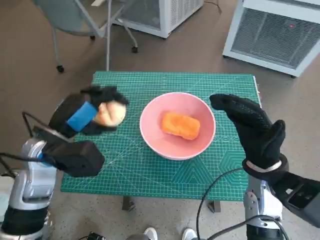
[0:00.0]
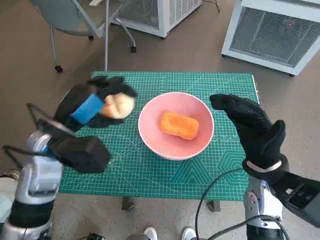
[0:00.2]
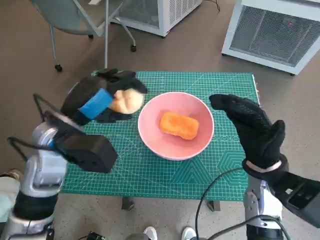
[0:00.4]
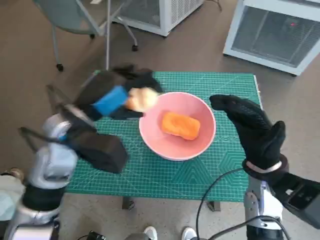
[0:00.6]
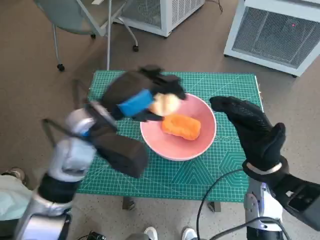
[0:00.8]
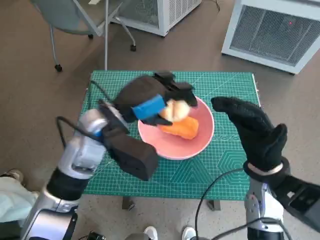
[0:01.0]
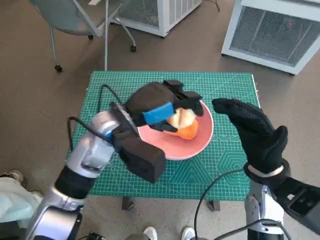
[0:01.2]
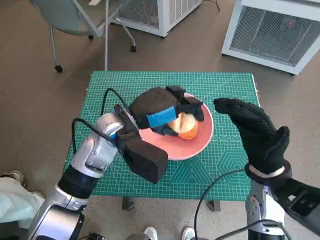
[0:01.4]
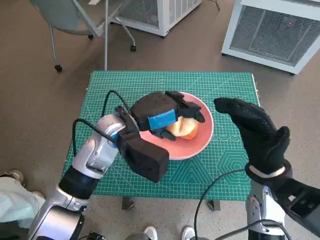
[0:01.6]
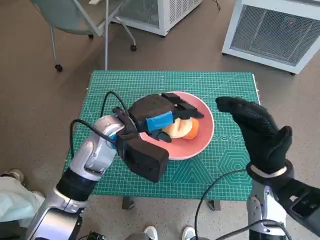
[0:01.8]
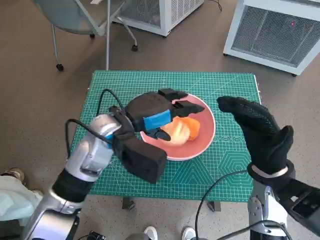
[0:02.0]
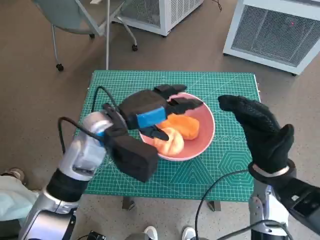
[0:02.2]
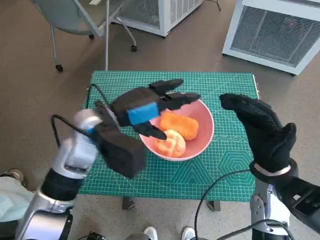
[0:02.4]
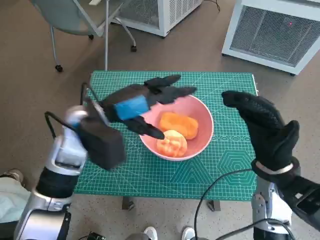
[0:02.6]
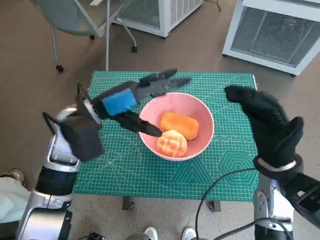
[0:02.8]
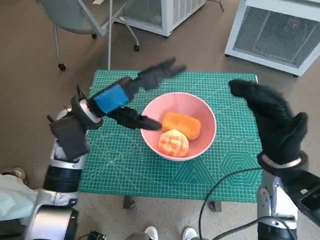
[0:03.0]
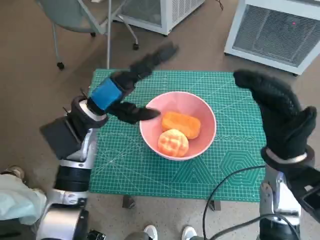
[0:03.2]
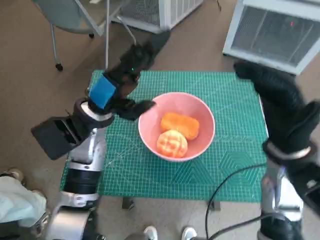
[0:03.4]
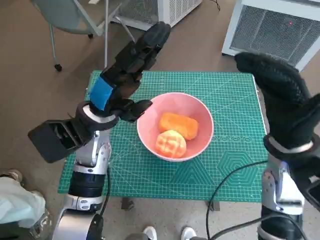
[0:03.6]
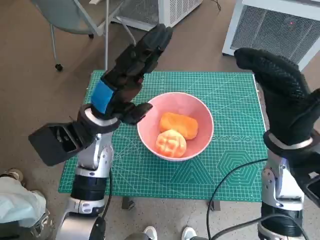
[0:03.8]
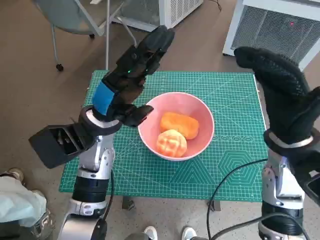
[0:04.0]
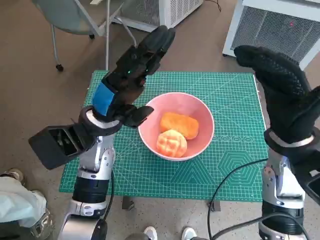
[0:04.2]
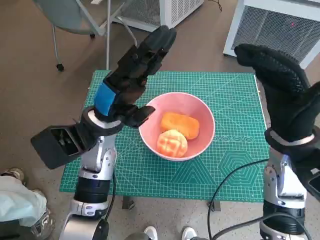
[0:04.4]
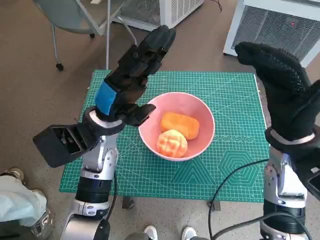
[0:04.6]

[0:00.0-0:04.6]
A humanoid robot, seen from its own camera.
Task of the whole recording: Push the bowl into the center of the table and put the bread into the bowl.
Step, 0:00.0 to 0:01.8: Place the round bread in pink bowl with left hand.
0:00.0 to 0:01.6: The left hand moves to the right, about 10 cm.
0:01.6 to 0:03.0: The left hand heads to the left, covering roughly 5 cm.
0:03.0 to 0:04.6: The right hand changes place by approximately 5 cm.

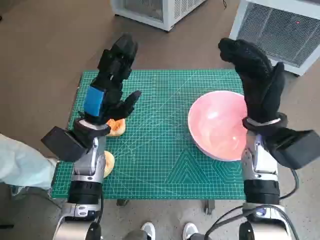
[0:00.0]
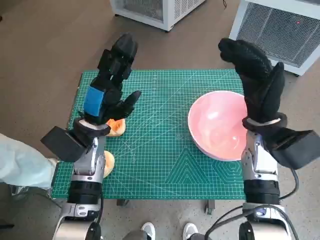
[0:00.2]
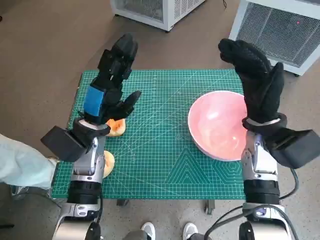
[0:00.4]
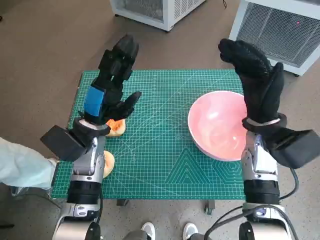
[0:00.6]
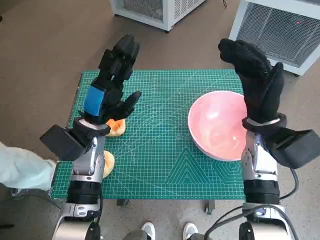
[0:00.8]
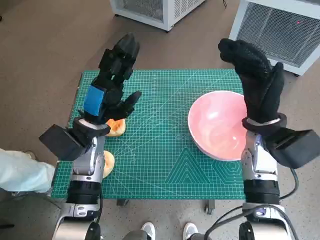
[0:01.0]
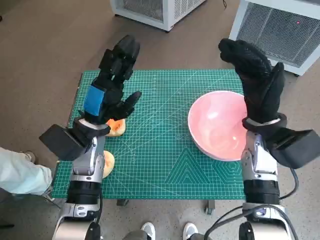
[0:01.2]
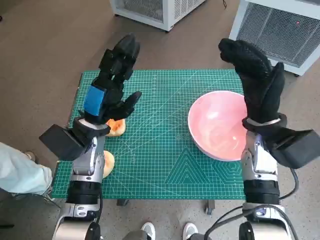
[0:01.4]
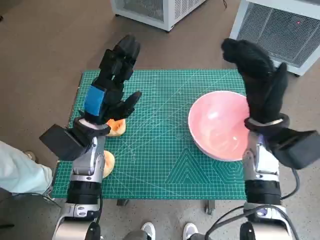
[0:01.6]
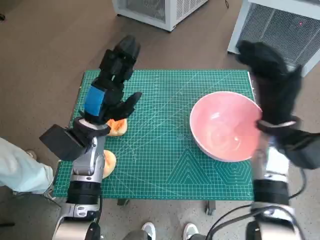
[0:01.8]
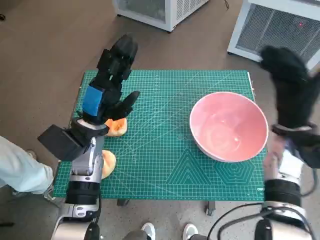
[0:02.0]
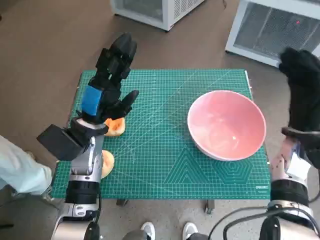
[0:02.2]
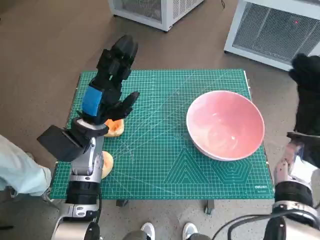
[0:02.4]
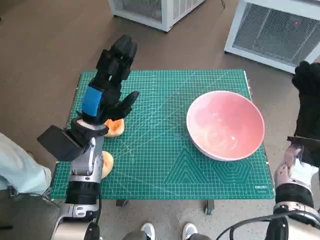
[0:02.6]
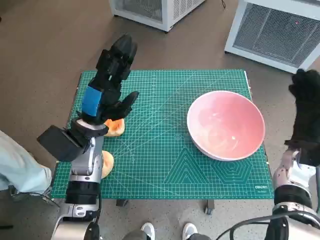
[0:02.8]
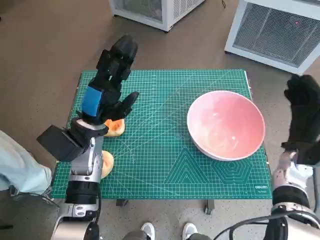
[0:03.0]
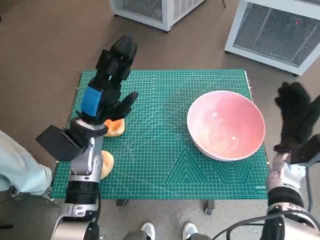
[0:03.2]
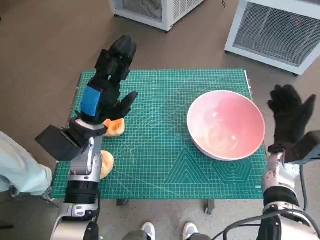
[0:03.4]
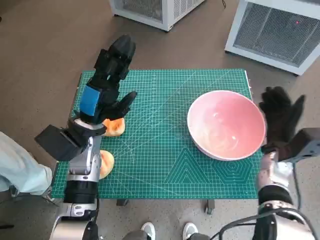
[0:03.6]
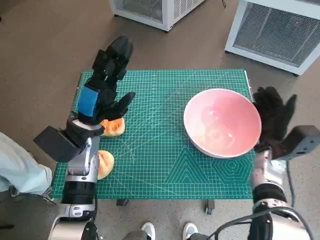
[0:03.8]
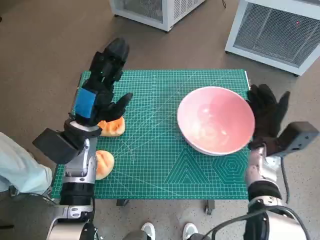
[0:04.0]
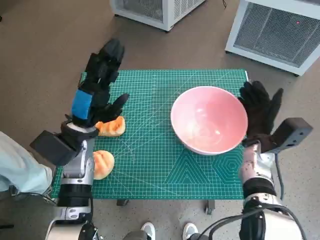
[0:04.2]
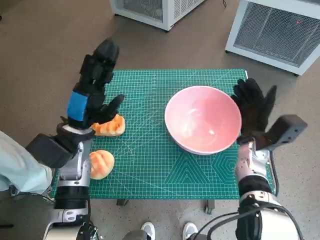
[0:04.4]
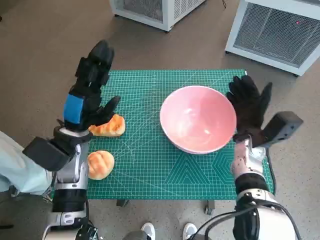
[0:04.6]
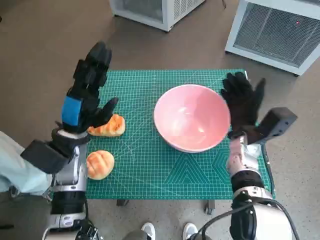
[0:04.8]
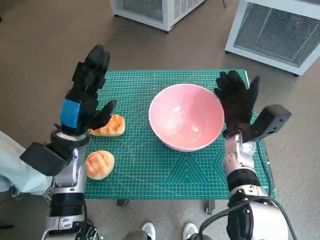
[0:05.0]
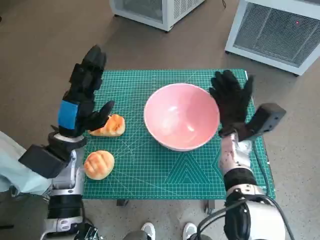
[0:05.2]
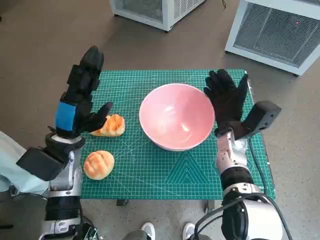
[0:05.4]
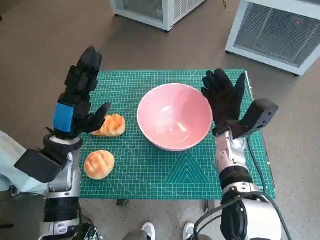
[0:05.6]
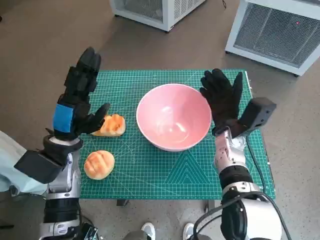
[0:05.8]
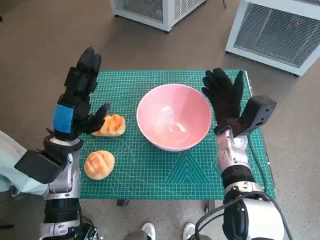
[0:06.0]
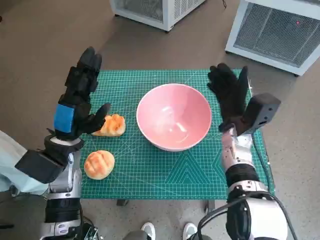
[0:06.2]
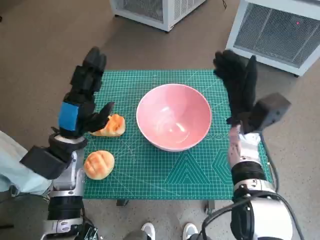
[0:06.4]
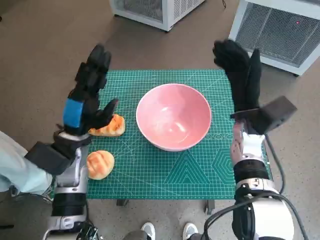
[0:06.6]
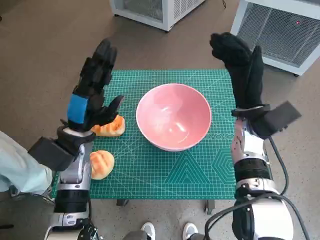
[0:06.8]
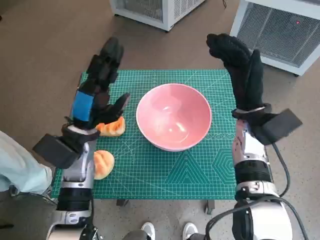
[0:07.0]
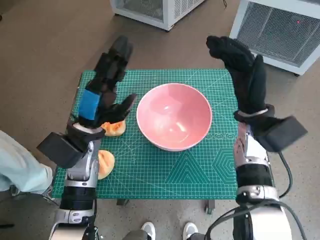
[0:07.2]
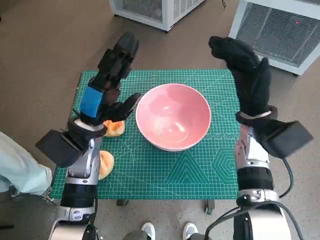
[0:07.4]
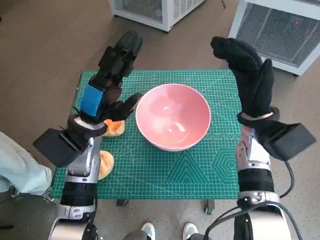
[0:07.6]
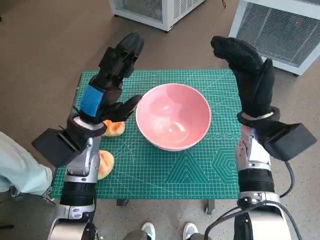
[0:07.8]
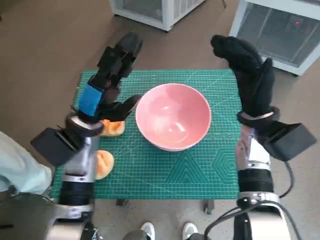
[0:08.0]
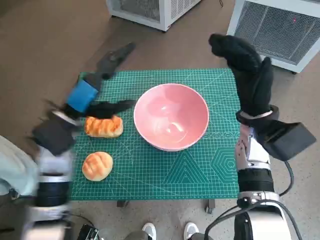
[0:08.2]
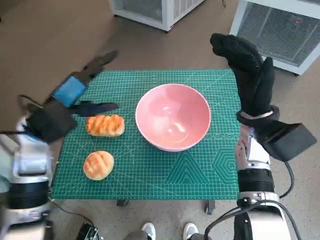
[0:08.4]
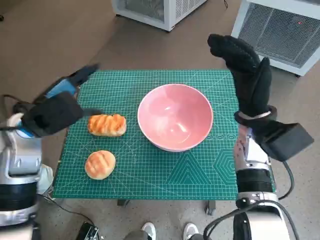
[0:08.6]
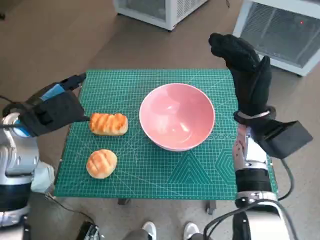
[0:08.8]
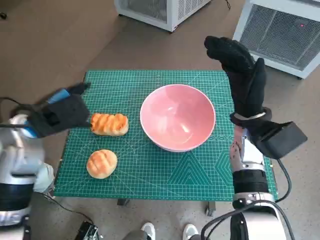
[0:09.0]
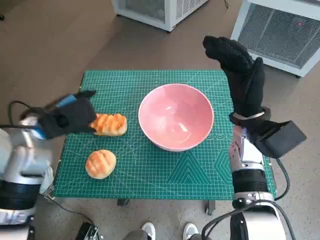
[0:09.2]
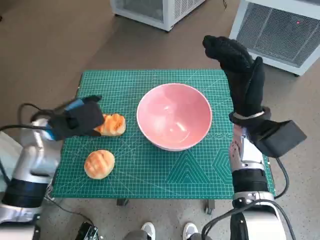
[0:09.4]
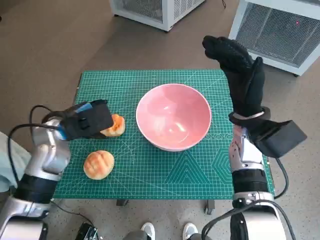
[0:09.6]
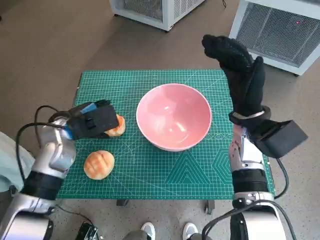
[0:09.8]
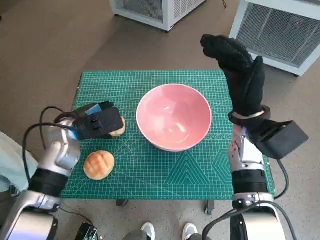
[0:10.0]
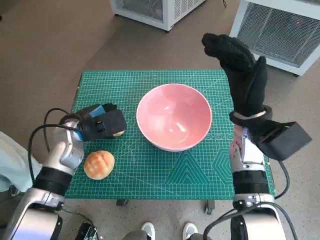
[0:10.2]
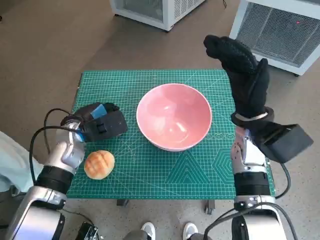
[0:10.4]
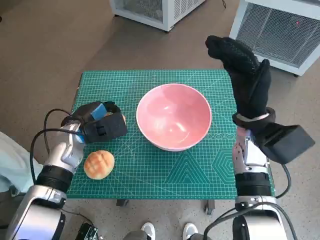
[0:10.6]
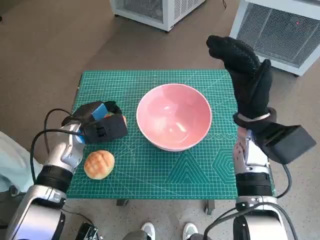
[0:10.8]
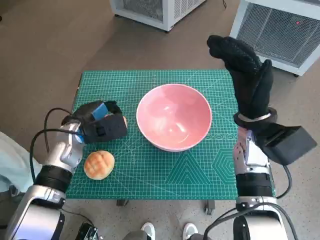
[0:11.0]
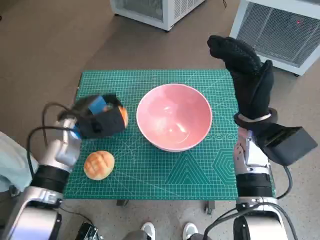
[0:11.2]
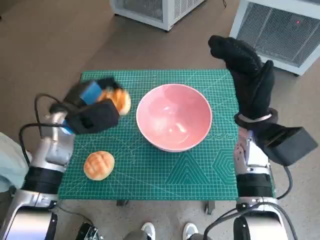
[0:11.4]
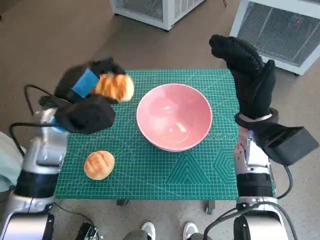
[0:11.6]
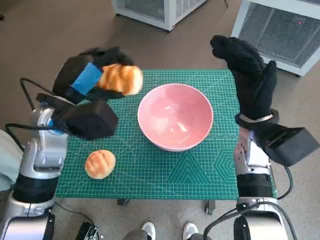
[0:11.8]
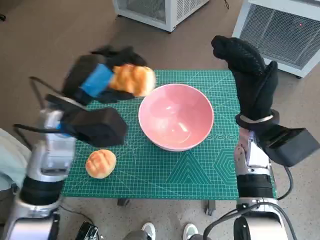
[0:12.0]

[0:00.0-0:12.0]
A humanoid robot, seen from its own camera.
Task of the whole recording: Push the bowl into the center of the table and put the bread into the bowl.
Step, 0:00.0 to 0:06.0: Move the pink bowl to the center of table with right hand.
Step, 0:06.2 to 0:10.6: Grasp the long bread with left hand.
0:01.6 to 0:03.0: The right hand goes approximately 10 cm to the right and downward.
0:03.0 to 0:04.4: The right hand shifts about 10 cm to the left.
0:04.4 to 0:06.0: The right hand goes some 5 cm to the left.
0:06.0 to 0:07.6: The right hand is displaced upward by approximately 5 cm. Meanwhile the left hand shifts by about 5 cm.
0:07.6 to 0:09.0: The left hand is displaced to the left by some 10 cm.
0:09.0 to 0:10.4: The left hand travels downward by some 10 cm.
0:10.4 to 0:12.0: The left hand heads upward, covering roughly 10 cm.

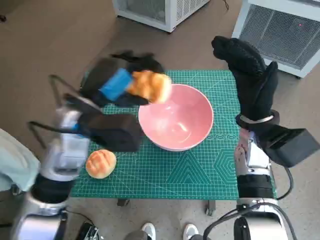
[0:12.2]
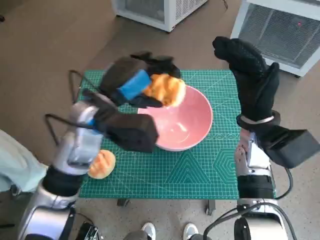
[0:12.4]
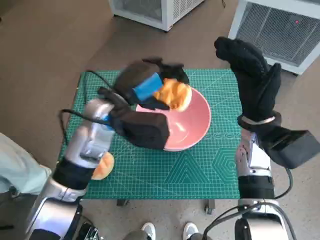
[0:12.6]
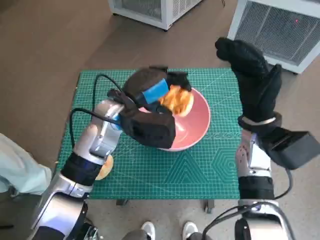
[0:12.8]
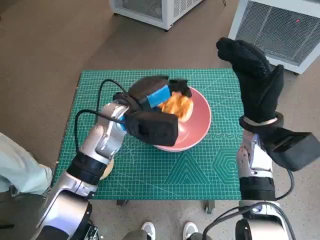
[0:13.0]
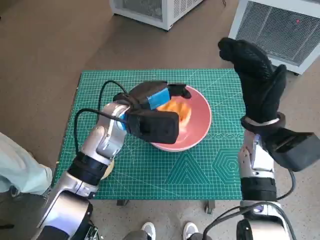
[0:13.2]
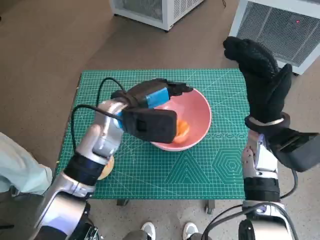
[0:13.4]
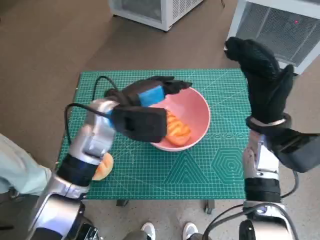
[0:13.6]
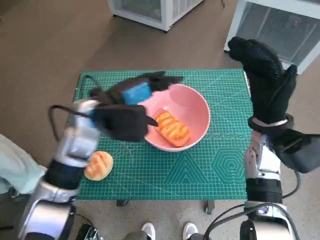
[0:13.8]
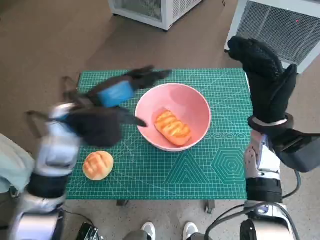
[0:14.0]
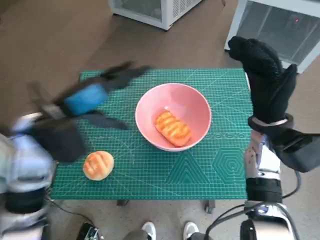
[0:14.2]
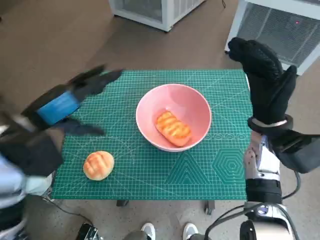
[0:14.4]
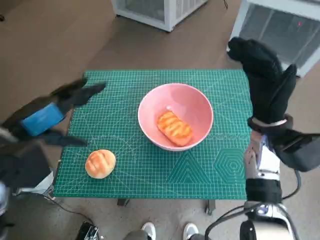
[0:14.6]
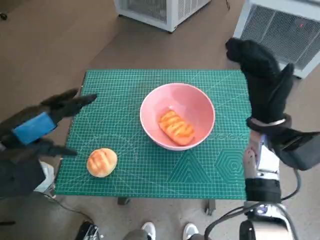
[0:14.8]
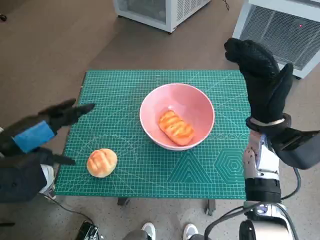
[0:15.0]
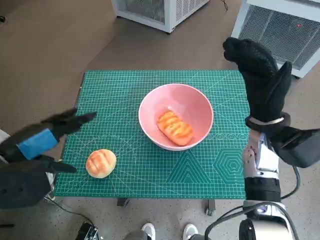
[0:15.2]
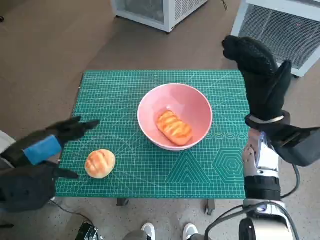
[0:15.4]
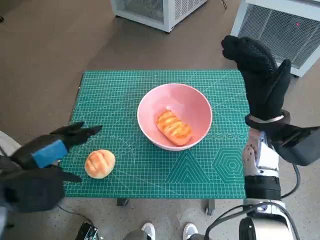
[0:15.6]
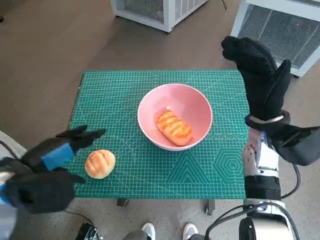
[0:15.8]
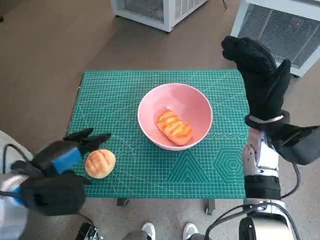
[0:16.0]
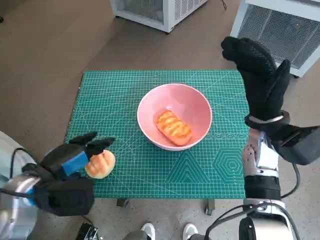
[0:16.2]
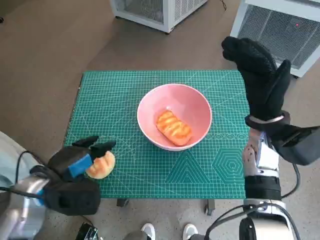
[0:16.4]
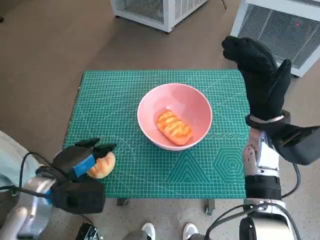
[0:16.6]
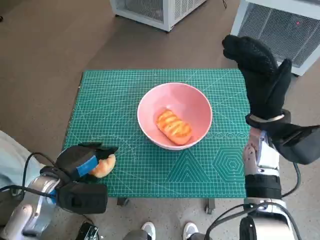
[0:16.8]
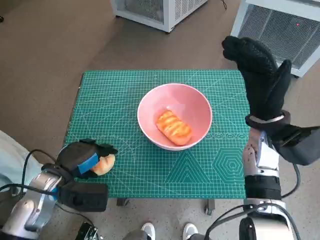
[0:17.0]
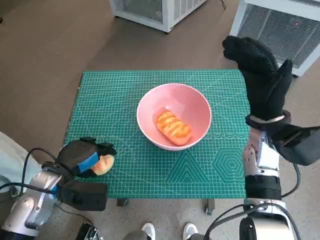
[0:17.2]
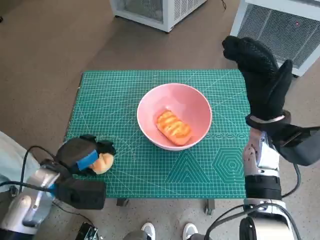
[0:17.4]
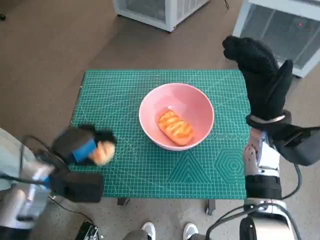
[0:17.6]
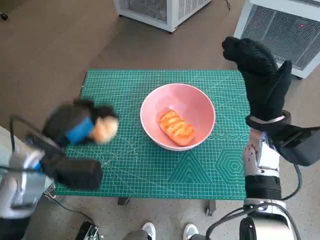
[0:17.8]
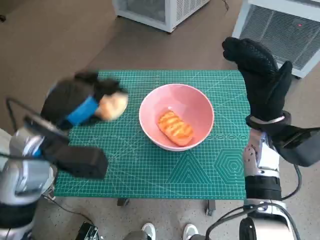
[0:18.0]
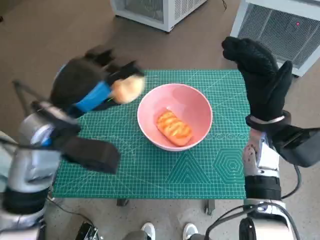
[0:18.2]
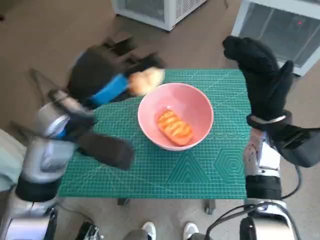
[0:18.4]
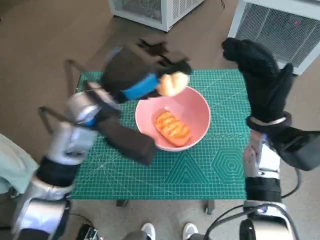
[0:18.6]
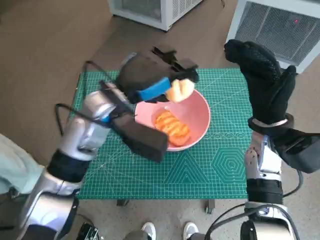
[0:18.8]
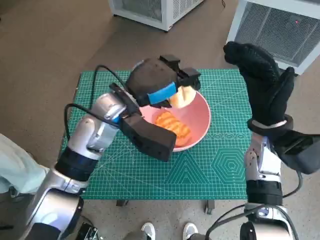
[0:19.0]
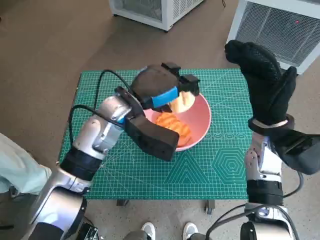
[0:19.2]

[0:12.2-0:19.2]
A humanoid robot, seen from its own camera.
Task of the whole recording: Push the bowl into the center of the table and put the bread into the bowl.
Step, 0:12.2 to 0:13.8: Place the long bread in pink bowl with left hand.
Step, 0:14.0 to 0:16.8: Grasp the round bread with left hand.
0:12.2 to 0:13.6: The left hand shifts by roughly 5 cm.
0:13.6 to 0:15.0: The left hand moves to the left and backward, some 20 cm.
0:15.0 to 0:16.4: The left hand shifts approximately 10 cm downward.
0:16.4 to 0:17.8: The left hand changes place by approximately 5 cm.
0:17.8 to 0:19.2: The left hand moves to the right and forward, approximately 15 cm.
